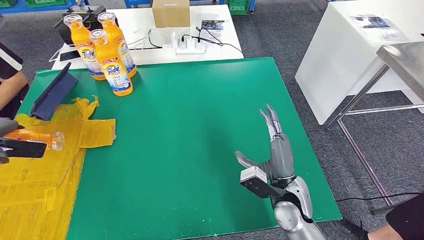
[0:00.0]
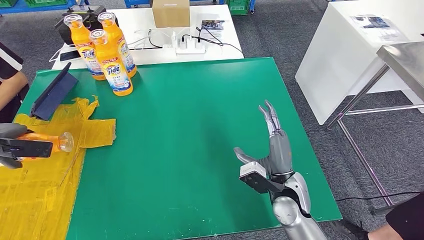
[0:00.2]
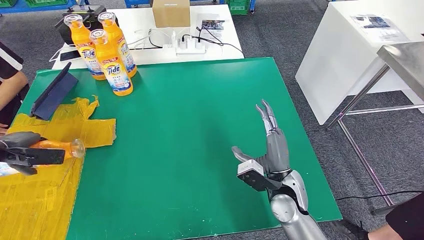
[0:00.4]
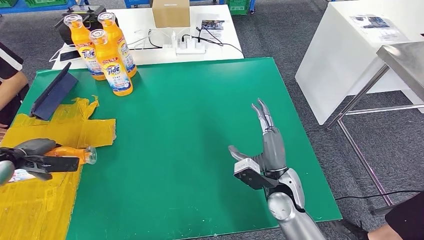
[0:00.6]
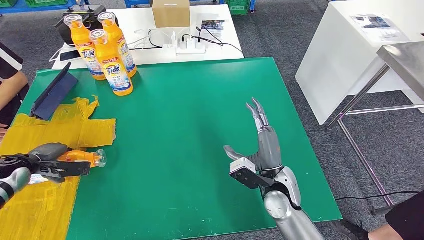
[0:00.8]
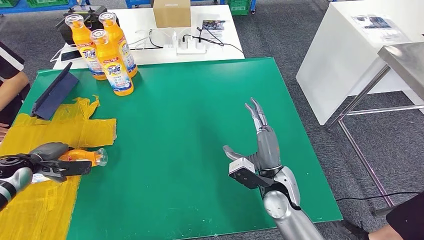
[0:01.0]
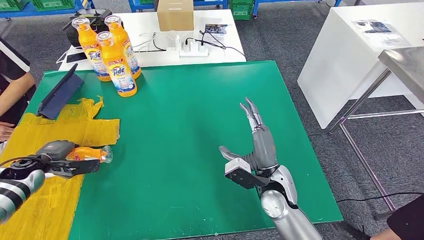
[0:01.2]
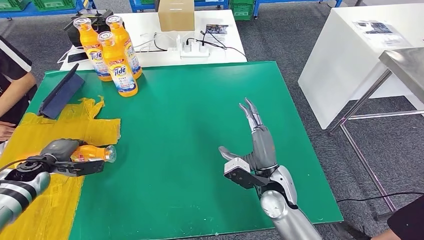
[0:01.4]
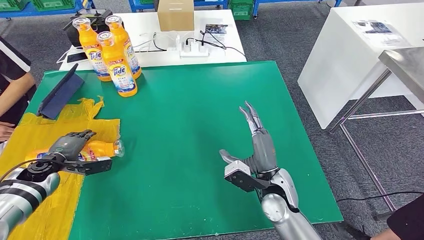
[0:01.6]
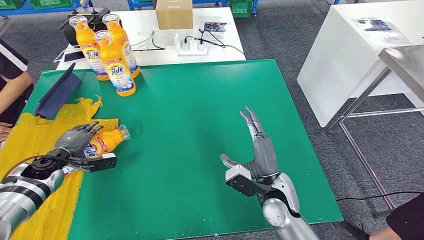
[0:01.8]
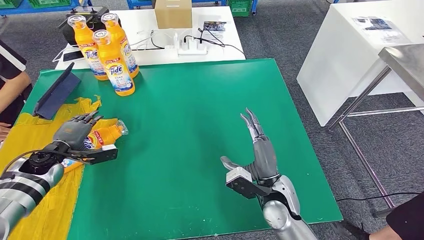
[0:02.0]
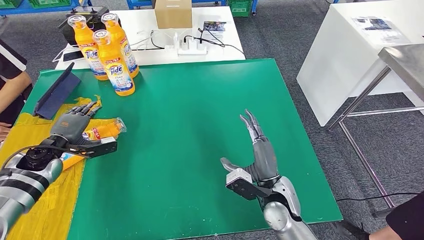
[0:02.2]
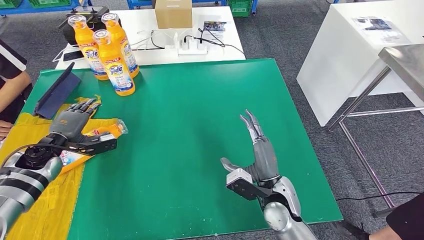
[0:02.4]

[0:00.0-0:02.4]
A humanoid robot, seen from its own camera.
Step, 0:00.0 to 0:02.4: Flip the fast-moving consumer goods bottle to the front side.
